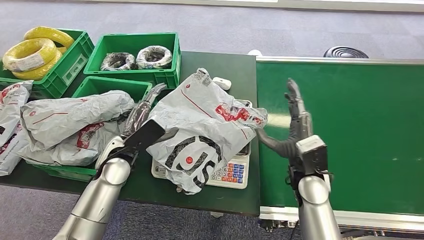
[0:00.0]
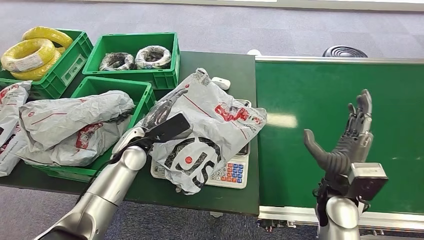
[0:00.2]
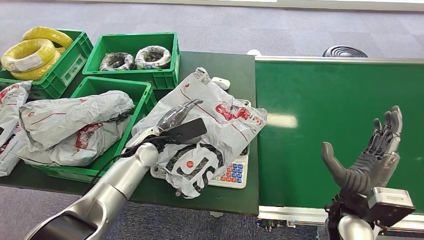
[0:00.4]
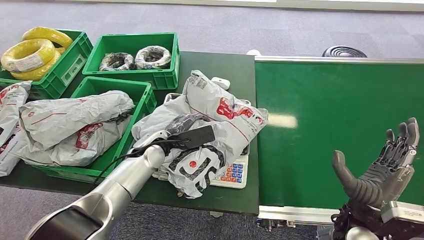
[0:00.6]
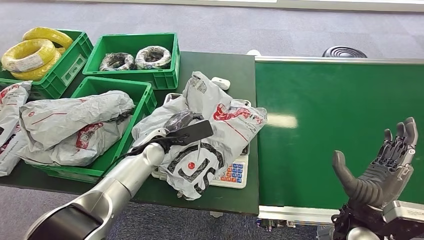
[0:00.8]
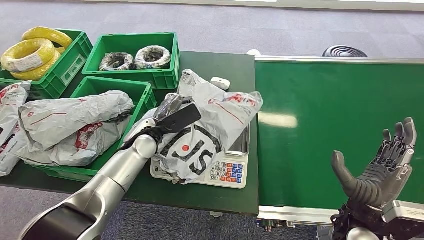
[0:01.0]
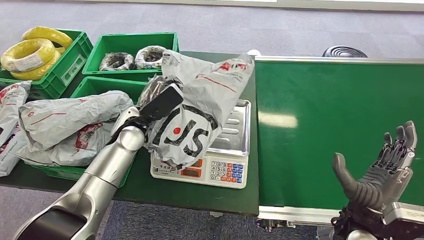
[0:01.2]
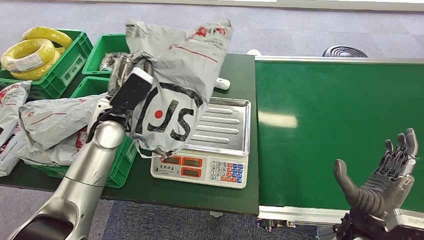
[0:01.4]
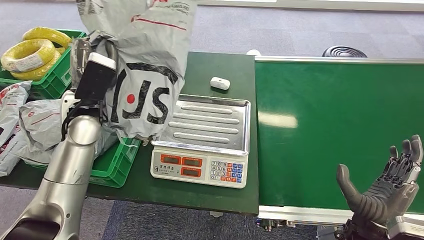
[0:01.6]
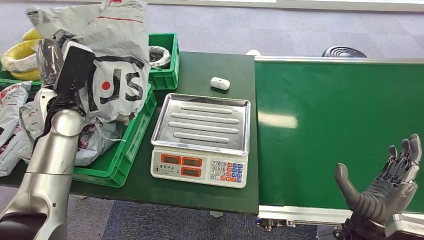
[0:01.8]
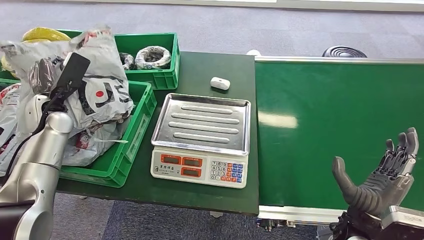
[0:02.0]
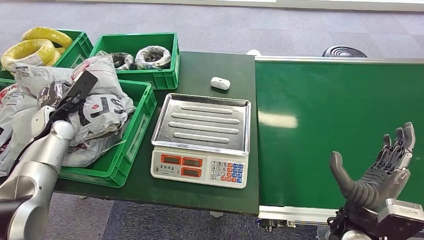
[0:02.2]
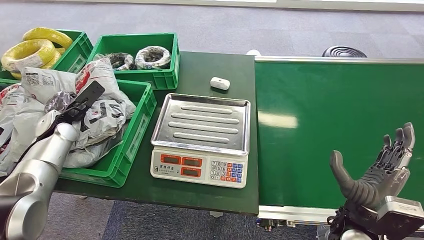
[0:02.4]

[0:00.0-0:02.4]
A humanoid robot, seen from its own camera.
Step, 0:00.0 to 0:01.2: Pick up the package from the inbound machine.
Step, 0:01.4 to 0:02.4: Place the package into the parcel locker.

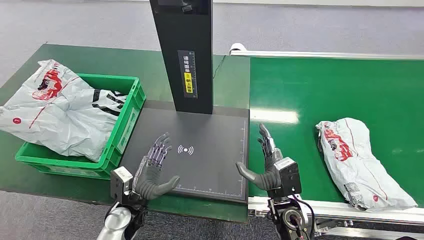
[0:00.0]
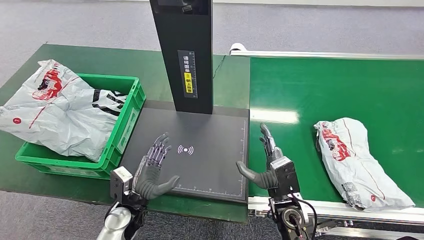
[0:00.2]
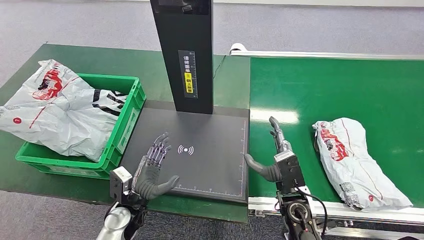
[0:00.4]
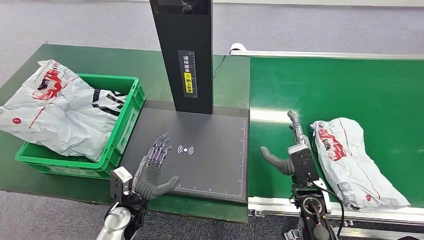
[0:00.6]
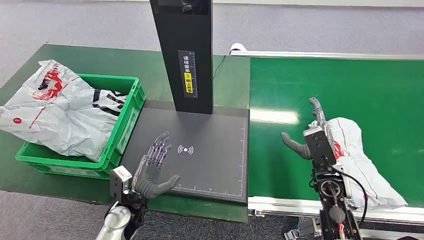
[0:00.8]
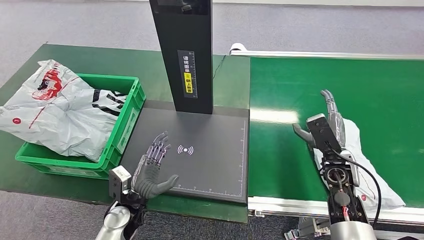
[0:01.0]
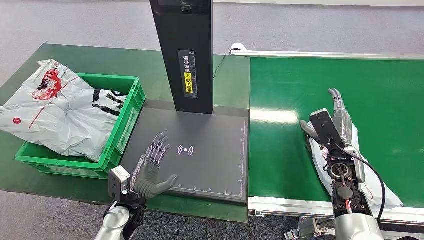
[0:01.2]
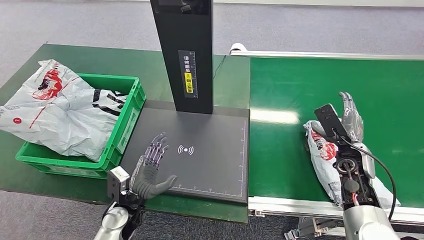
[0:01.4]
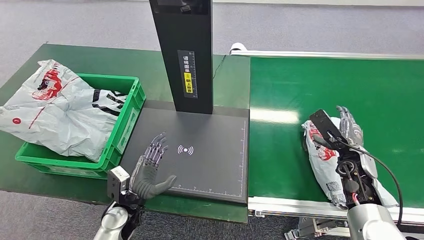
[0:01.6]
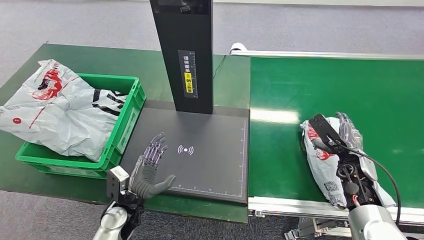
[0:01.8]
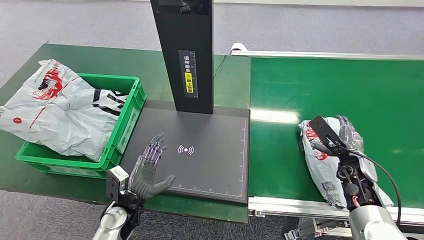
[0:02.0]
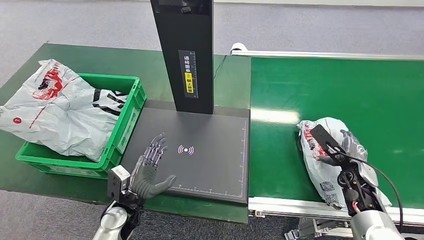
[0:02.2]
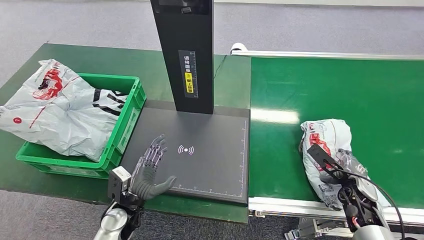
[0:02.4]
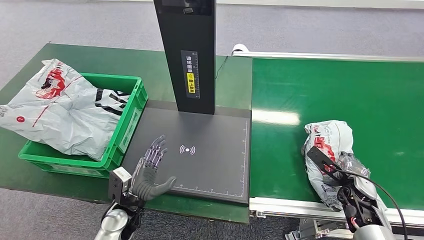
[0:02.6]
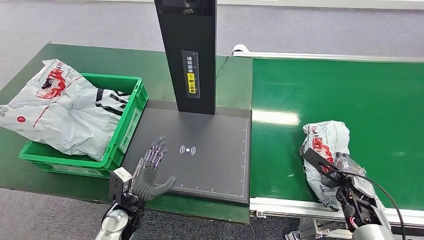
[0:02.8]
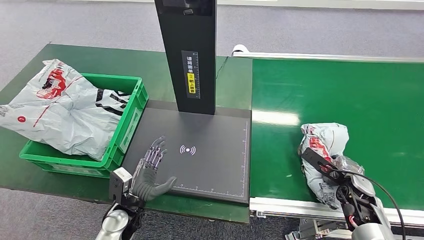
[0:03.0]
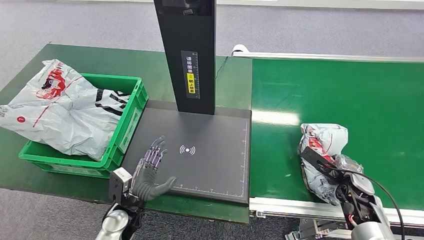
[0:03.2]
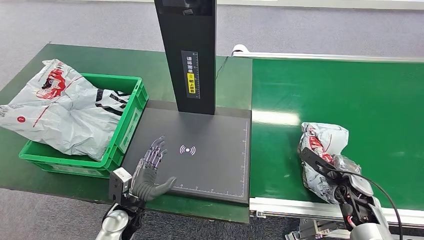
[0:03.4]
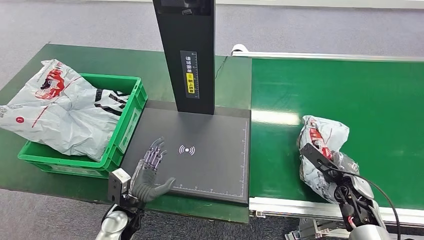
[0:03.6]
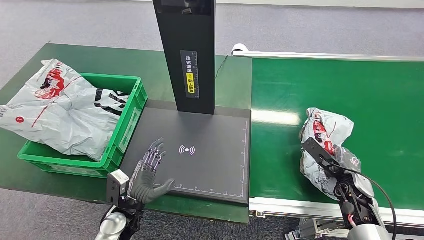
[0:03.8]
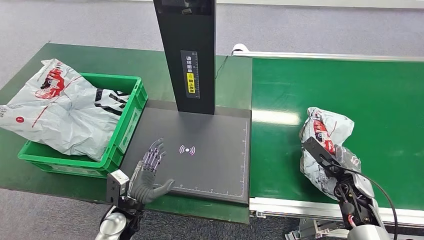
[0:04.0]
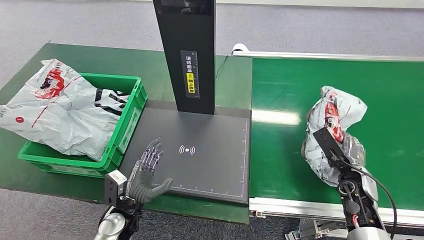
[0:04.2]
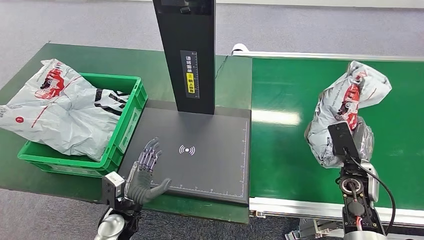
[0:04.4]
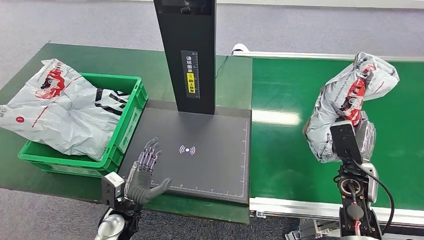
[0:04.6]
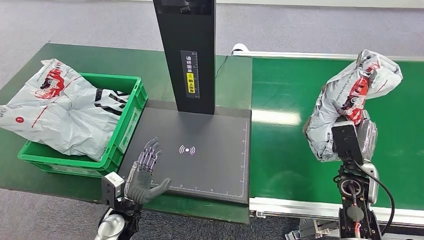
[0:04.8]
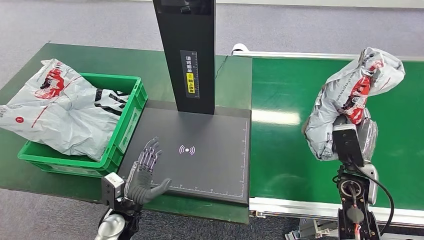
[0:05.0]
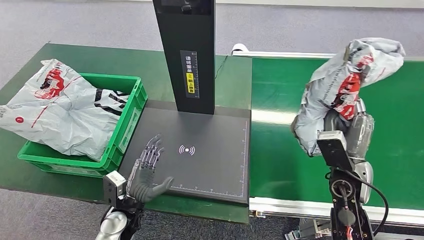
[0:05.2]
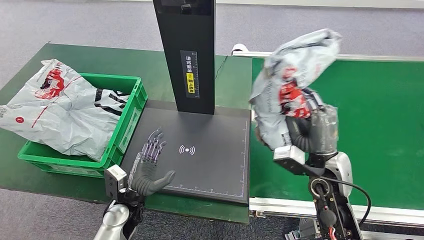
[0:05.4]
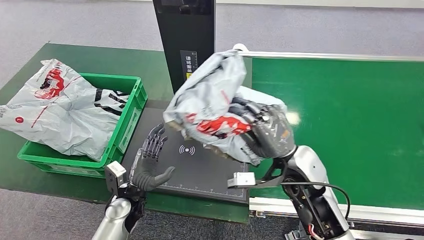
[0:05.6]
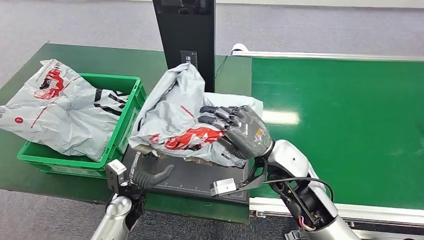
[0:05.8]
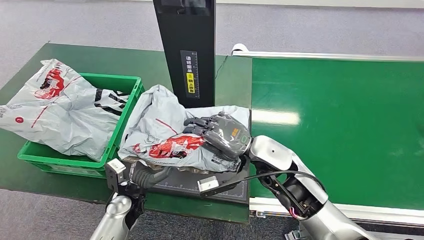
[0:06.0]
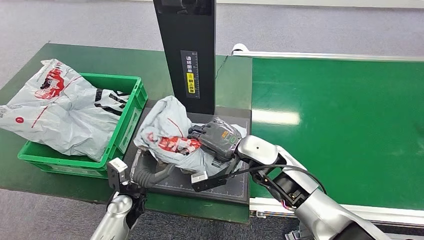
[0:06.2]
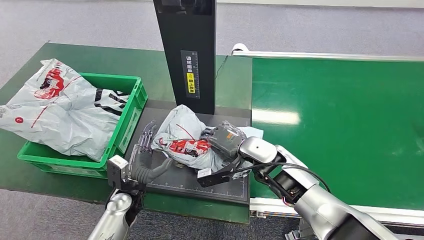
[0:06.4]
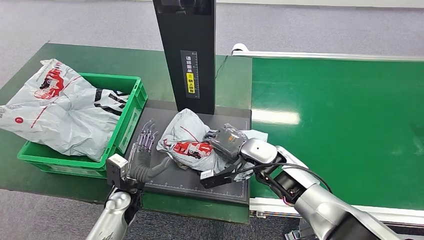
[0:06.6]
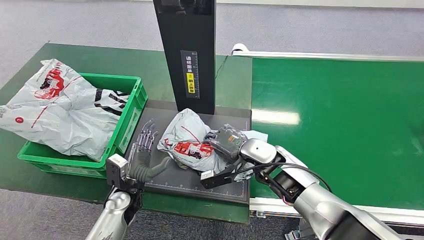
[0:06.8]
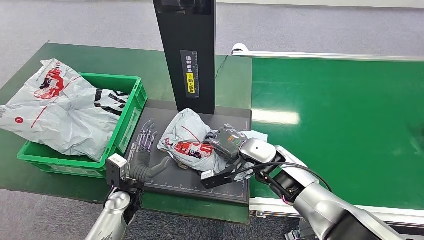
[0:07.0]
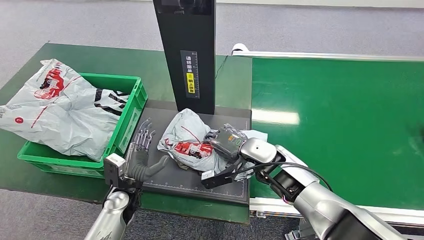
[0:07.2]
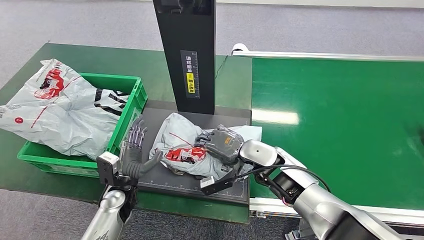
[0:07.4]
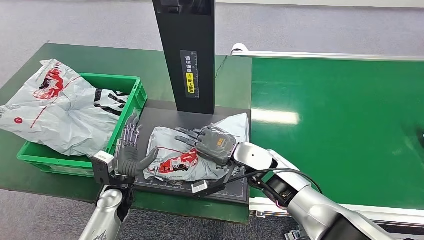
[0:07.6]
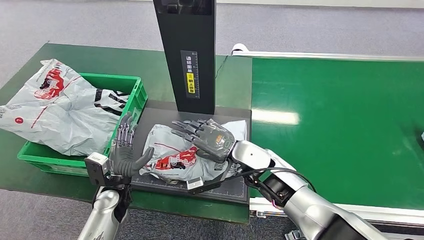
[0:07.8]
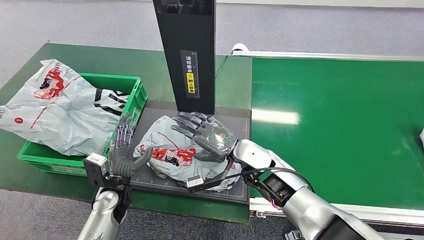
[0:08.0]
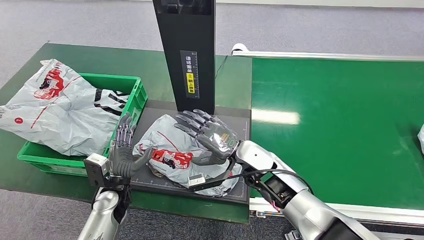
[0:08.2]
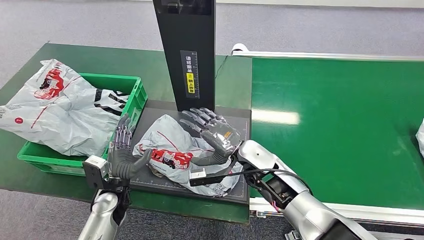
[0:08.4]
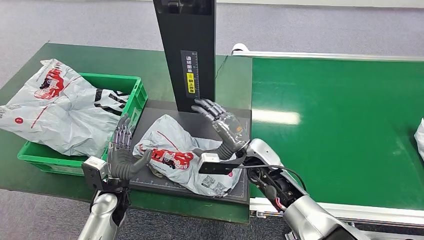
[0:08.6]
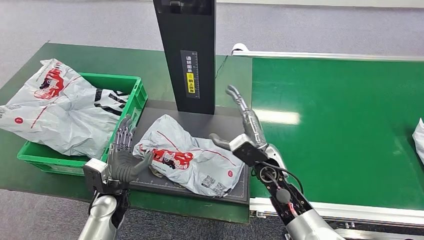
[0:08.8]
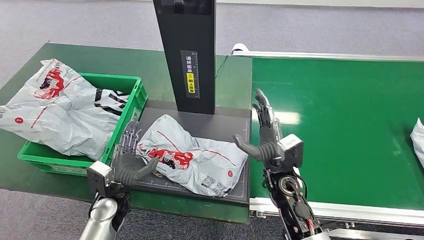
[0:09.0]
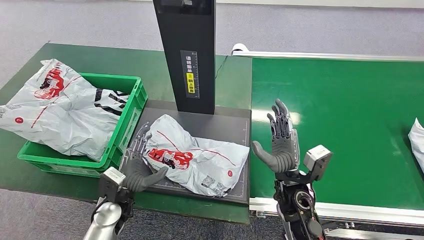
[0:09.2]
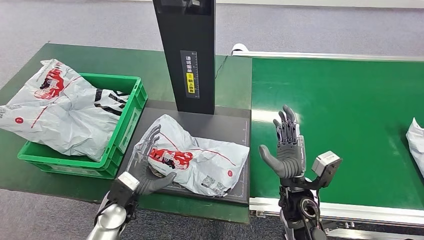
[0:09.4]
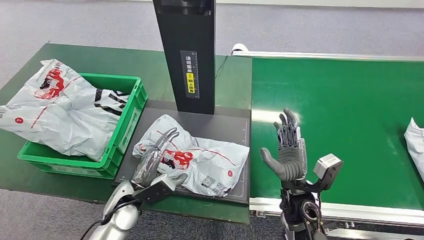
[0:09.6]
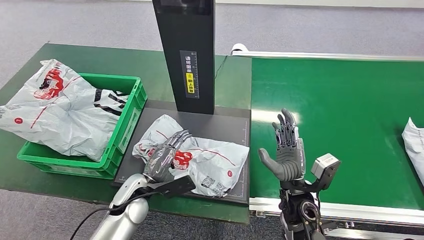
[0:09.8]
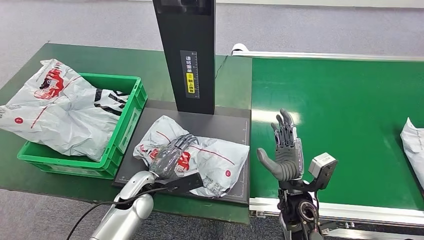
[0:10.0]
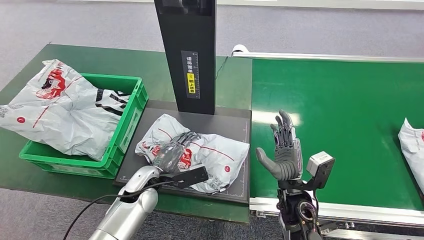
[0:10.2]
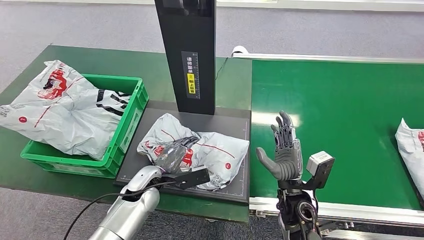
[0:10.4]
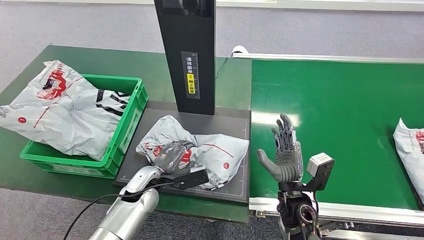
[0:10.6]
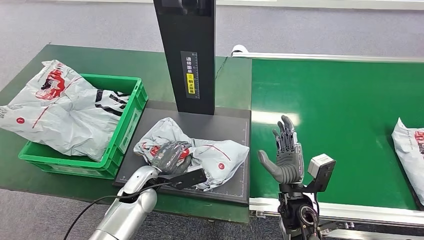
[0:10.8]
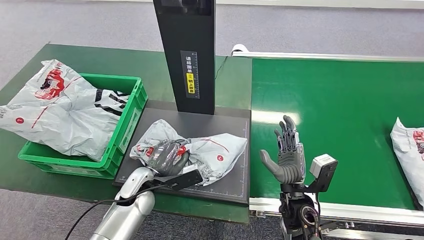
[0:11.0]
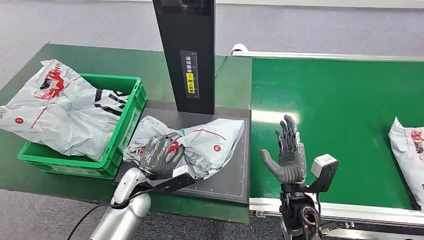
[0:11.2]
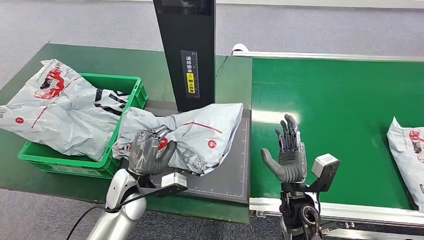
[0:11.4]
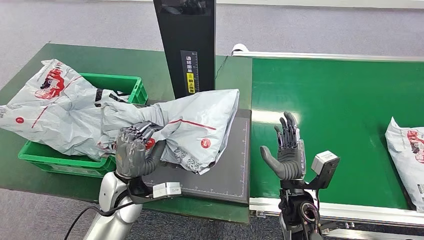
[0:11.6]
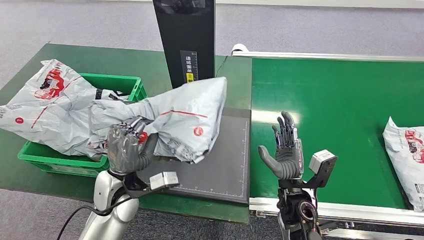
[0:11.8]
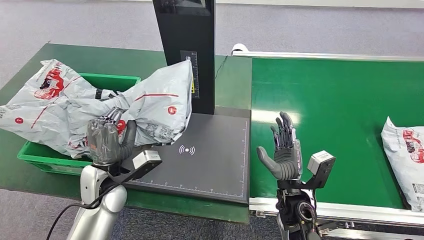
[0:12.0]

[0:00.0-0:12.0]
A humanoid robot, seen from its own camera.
Step, 0:00.0 to 0:04.4: Pick up the package from the conveyor belt.
Step, 0:04.6 to 0:09.2: Place the package onto the inbound machine.
0:03.0 to 0:04.4: The right hand is displaced upward by roughly 5 cm.
0:06.0 to 0:07.6: The right hand heads downward, covering about 5 cm.
0:07.6 to 0:09.0: The right hand heads backward, covering some 5 cm.

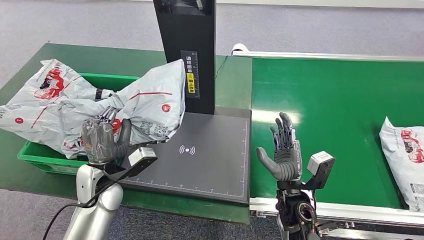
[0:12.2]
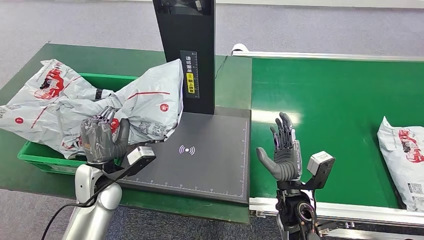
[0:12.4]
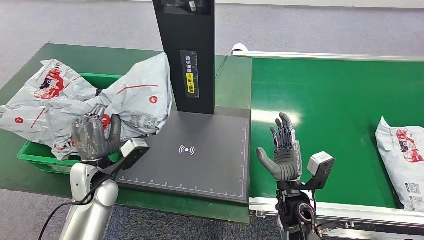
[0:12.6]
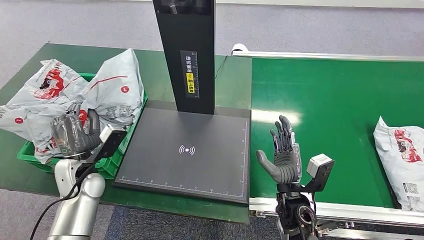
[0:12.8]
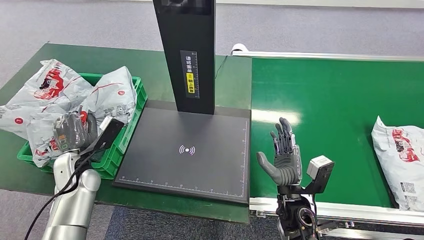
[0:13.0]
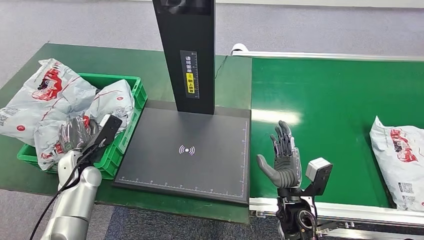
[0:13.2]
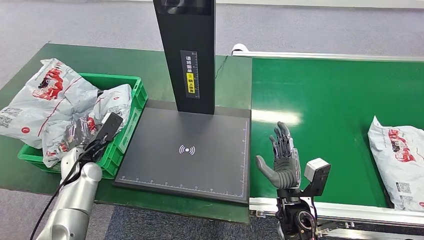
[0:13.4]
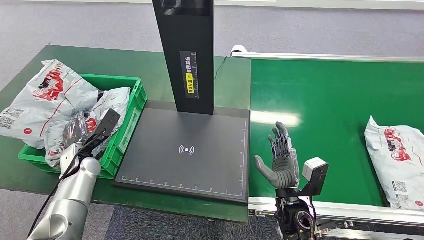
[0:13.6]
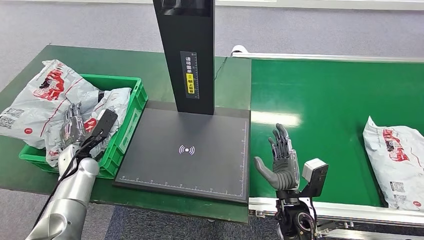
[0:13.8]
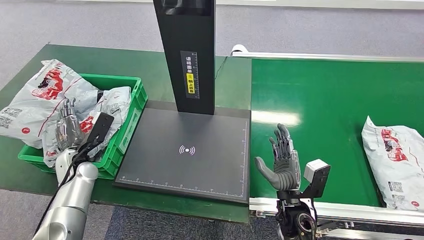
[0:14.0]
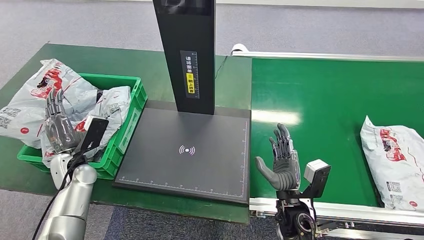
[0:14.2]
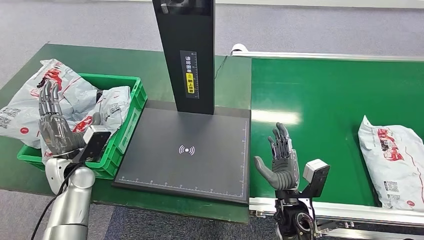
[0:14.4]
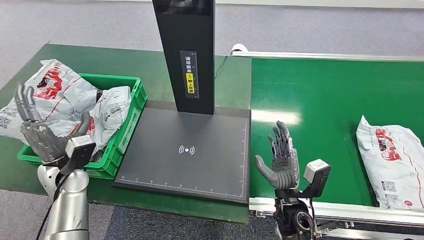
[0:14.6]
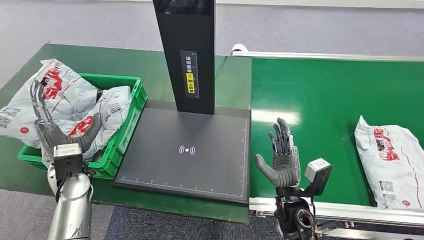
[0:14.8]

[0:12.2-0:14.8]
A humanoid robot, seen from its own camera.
Step, 0:12.4 to 0:14.8: Place the package into the parcel locker.
0:13.4 to 0:14.8: The left hand ends up some 10 cm from where it was.
